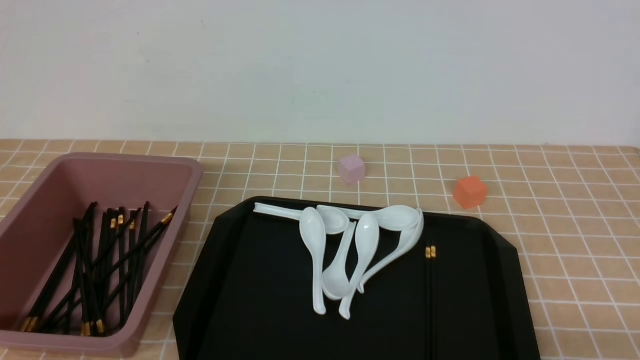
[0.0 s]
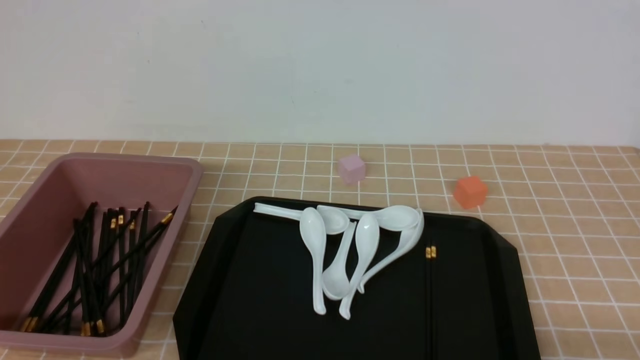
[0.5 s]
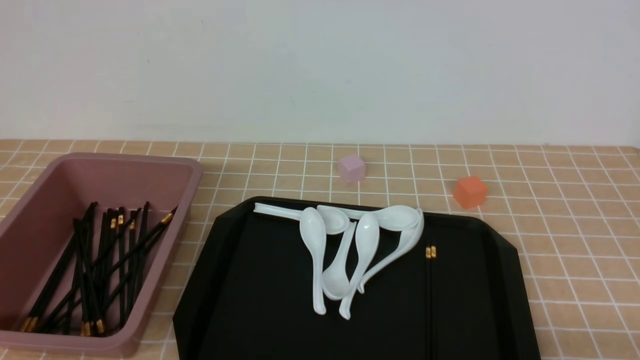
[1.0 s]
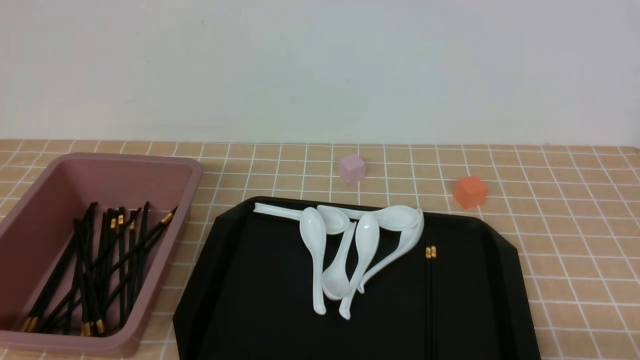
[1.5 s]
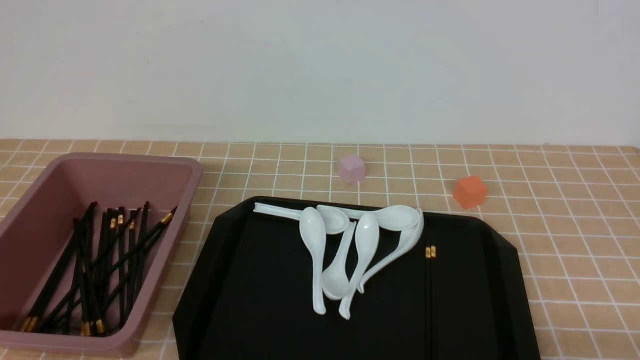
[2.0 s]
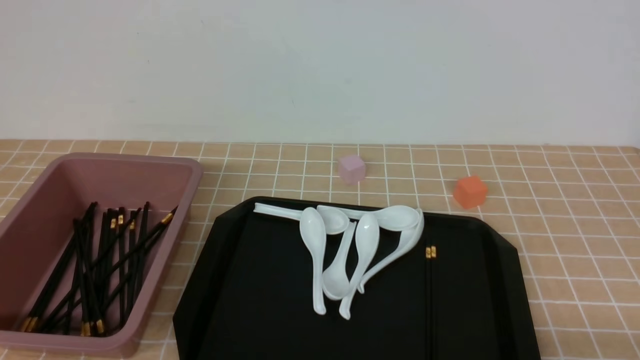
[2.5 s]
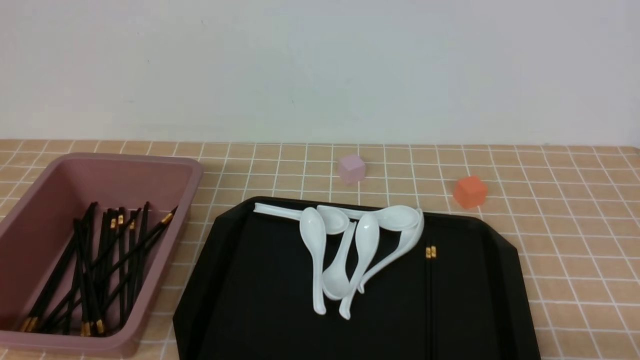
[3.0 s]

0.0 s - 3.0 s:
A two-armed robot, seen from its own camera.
0.0 s - 3.0 s: Both grippers stay put.
